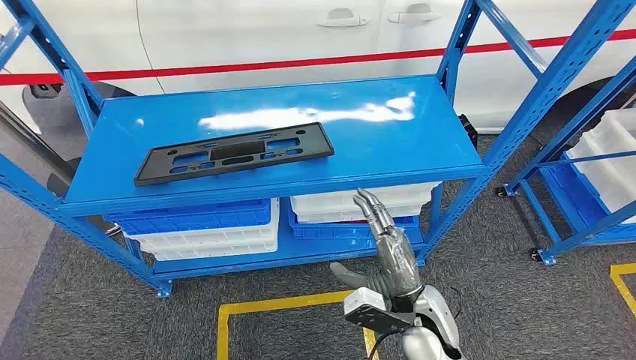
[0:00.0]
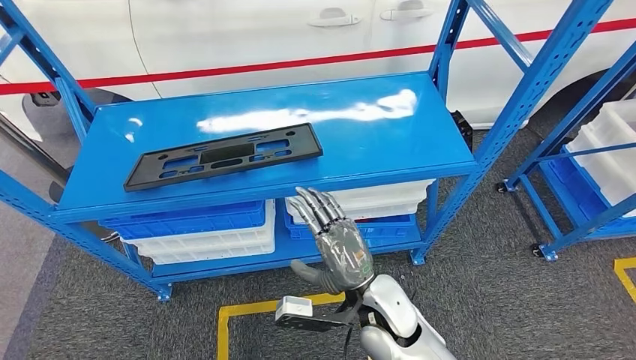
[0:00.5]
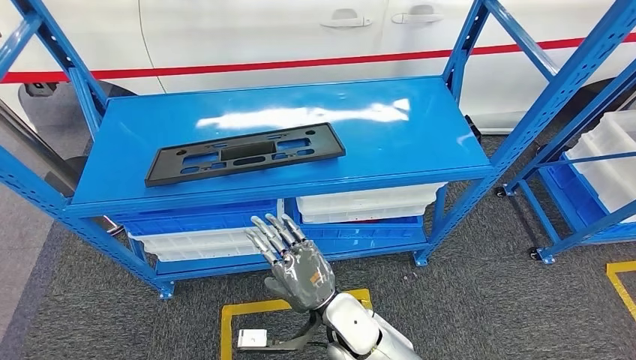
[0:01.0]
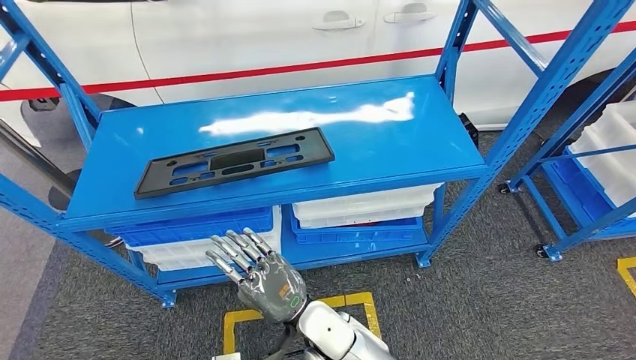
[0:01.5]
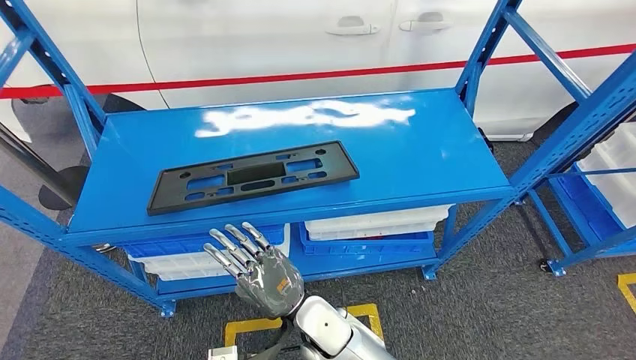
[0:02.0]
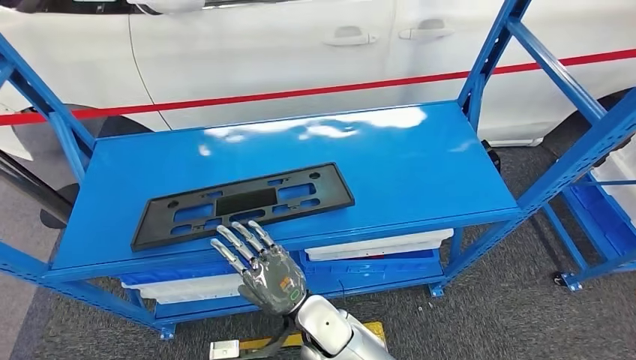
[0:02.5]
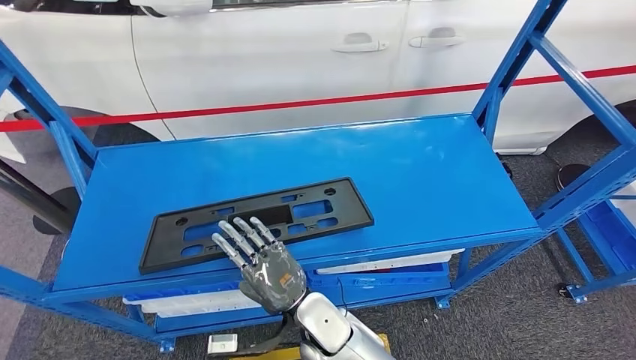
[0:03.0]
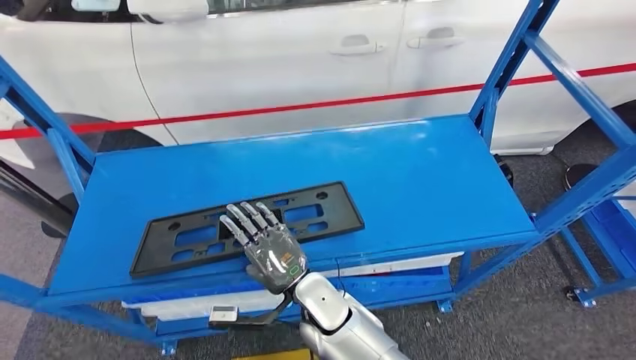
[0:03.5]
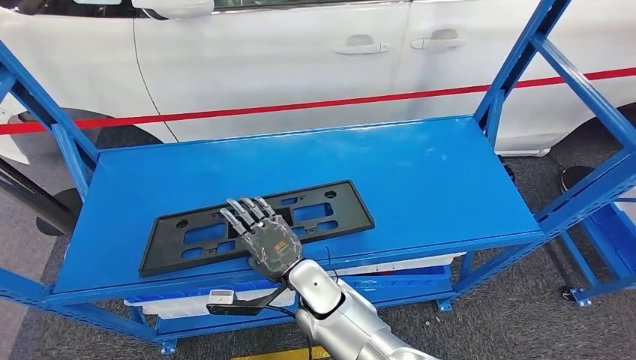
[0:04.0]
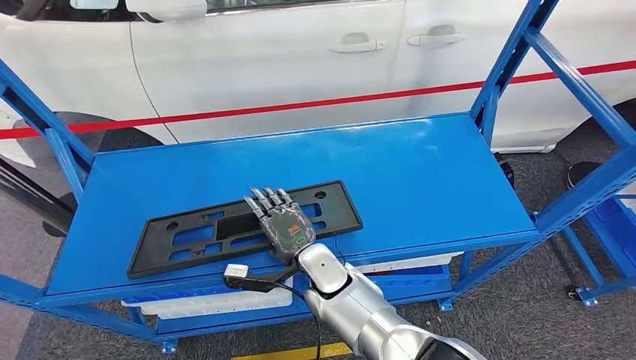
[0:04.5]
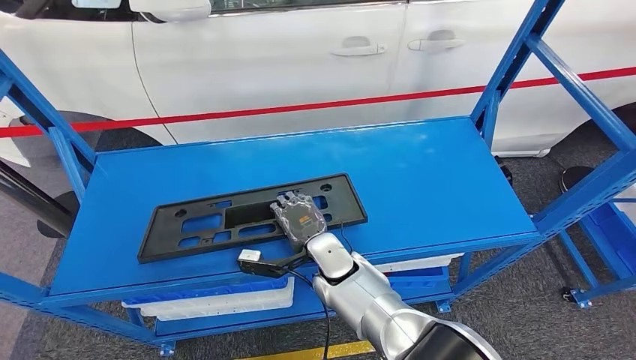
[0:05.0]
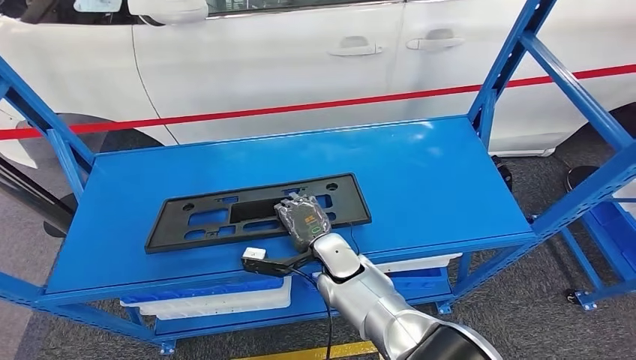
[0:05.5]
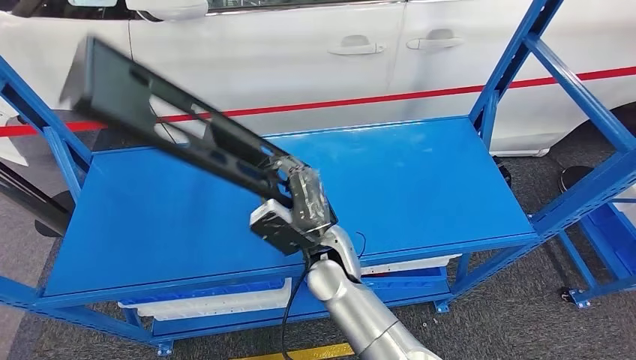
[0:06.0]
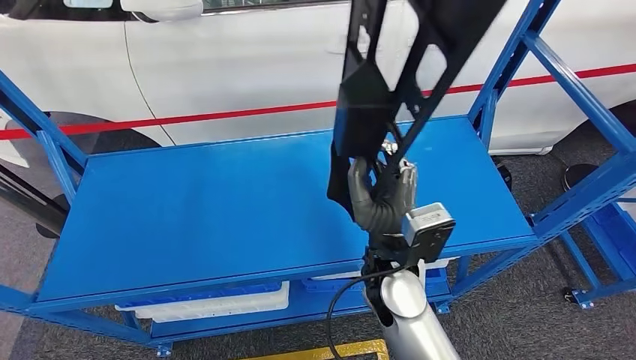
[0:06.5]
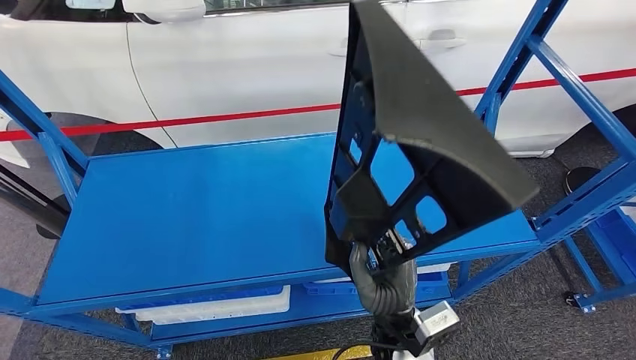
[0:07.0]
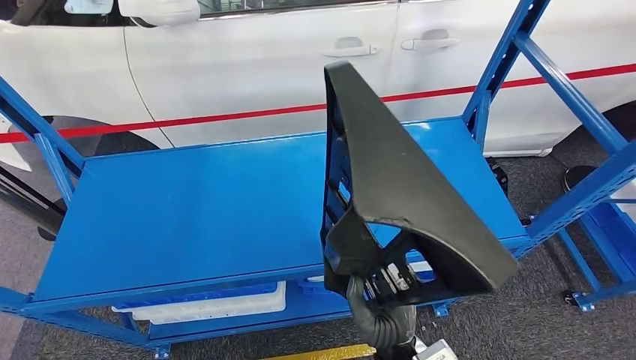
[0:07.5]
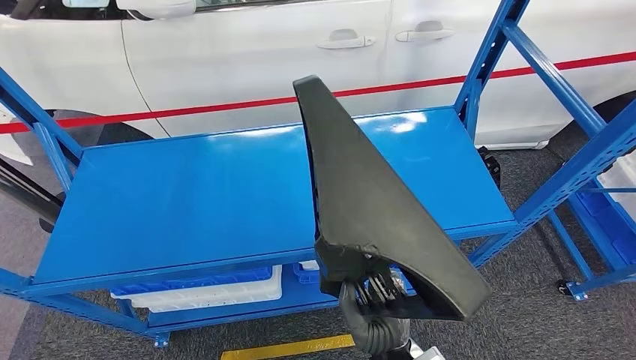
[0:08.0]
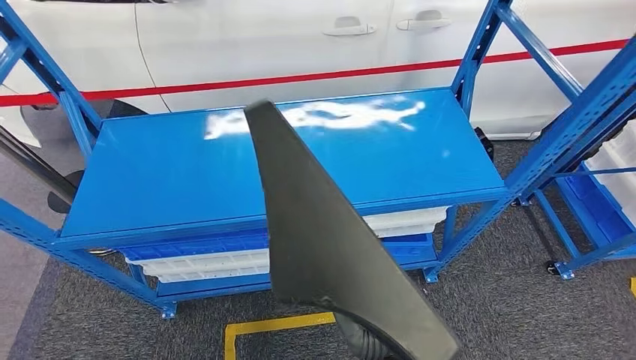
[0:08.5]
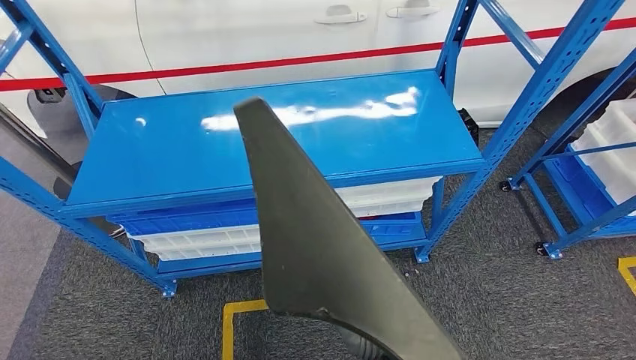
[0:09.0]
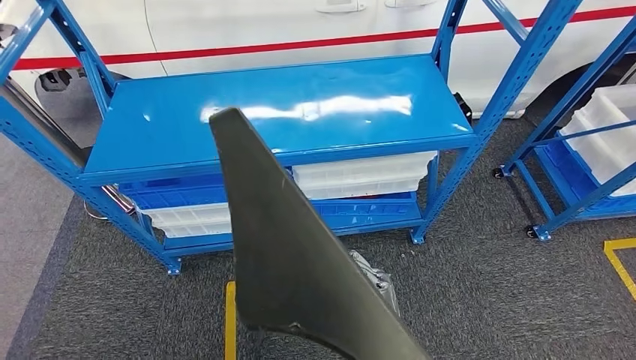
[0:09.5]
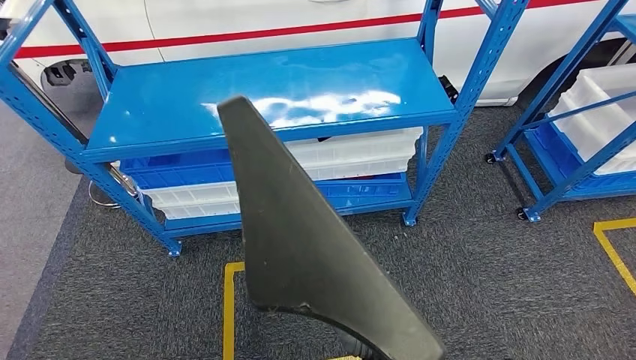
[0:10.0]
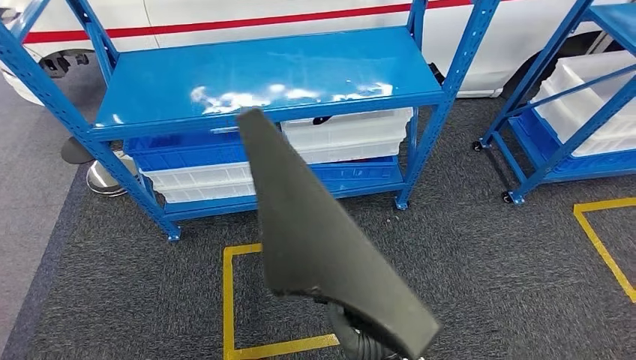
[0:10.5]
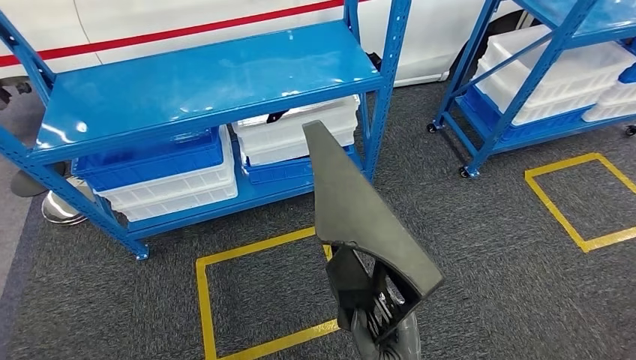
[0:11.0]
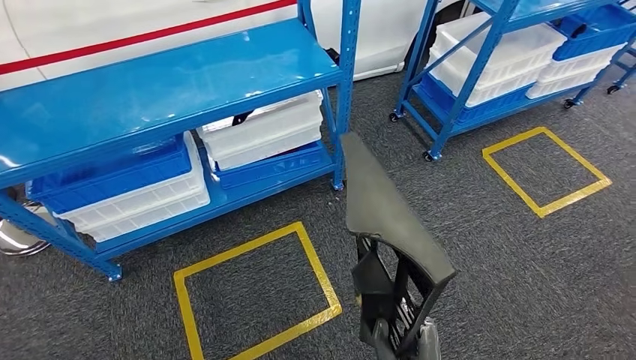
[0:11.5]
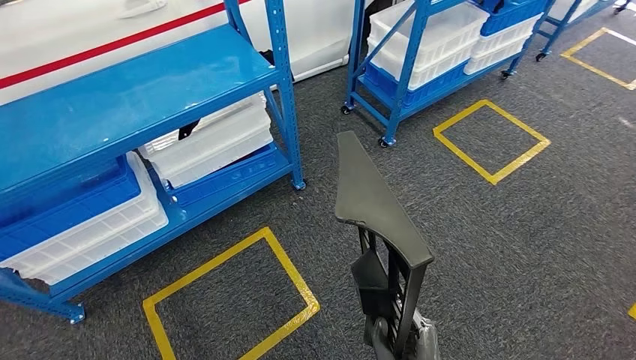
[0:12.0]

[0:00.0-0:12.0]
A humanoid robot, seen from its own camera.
Step, 0:00.0 to 0:08.0: Pick up the large material from the shelf.

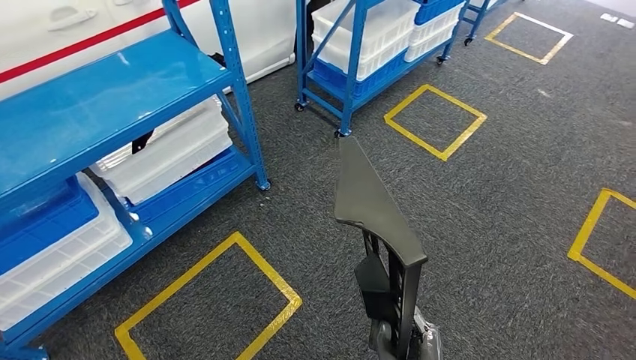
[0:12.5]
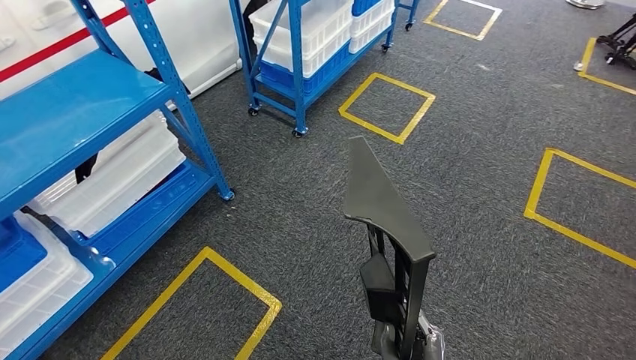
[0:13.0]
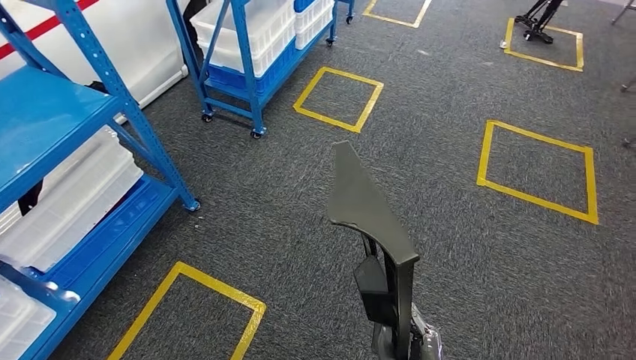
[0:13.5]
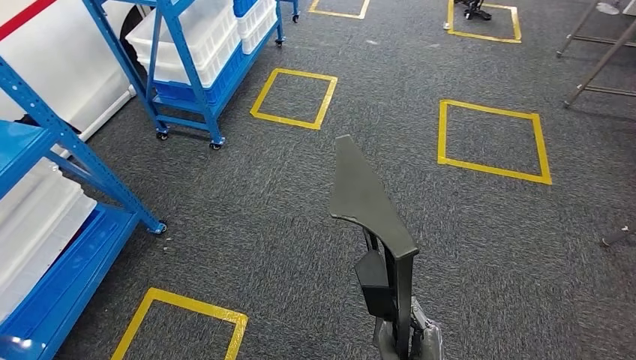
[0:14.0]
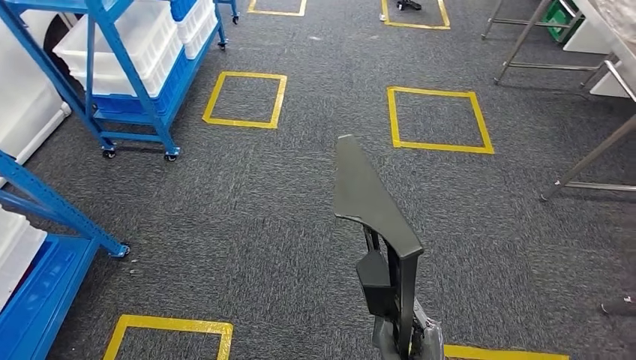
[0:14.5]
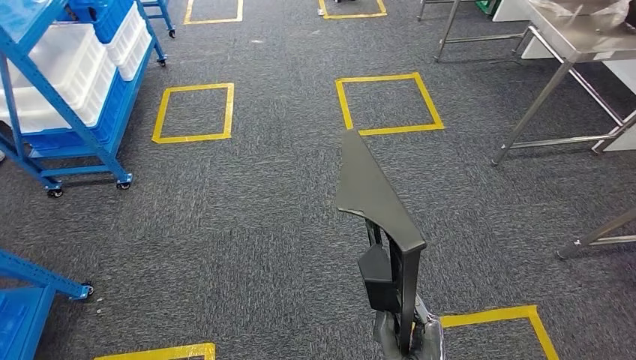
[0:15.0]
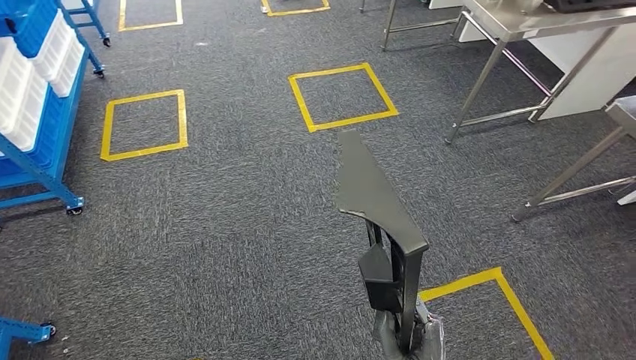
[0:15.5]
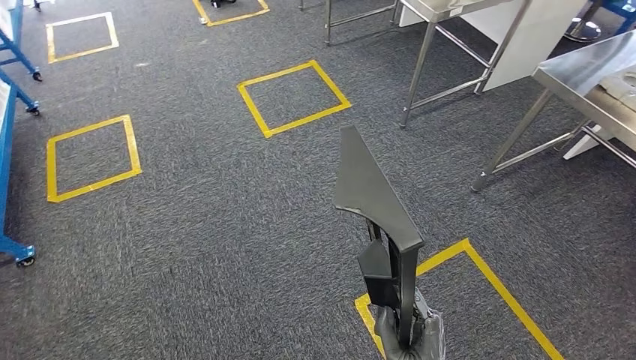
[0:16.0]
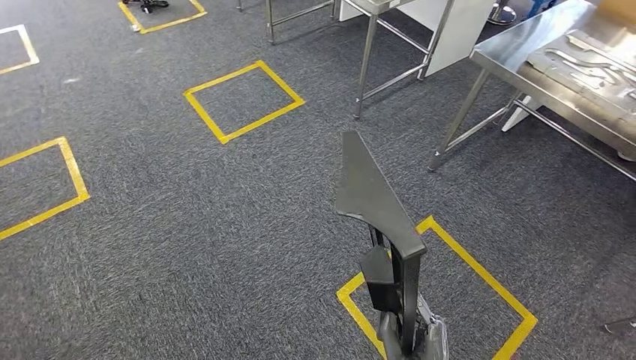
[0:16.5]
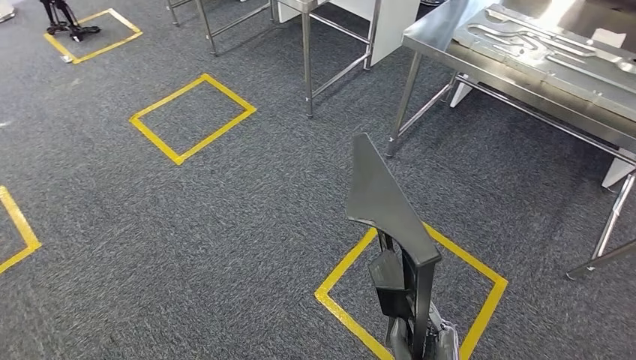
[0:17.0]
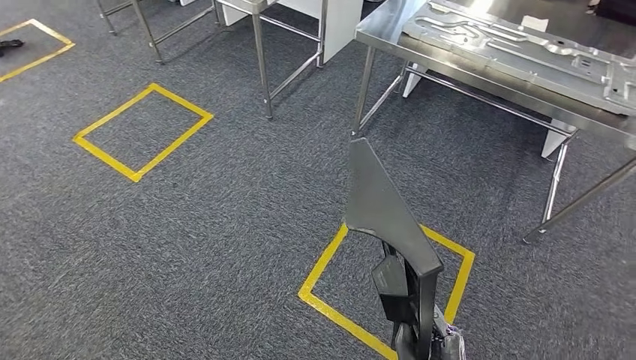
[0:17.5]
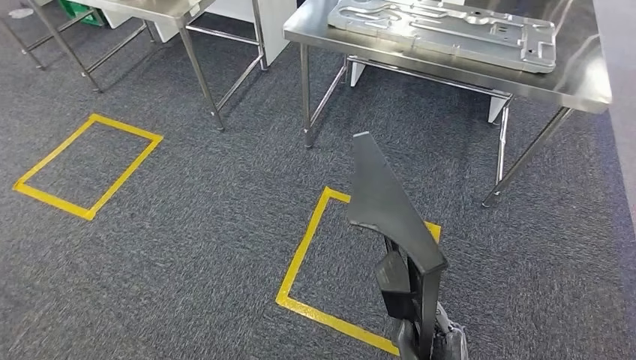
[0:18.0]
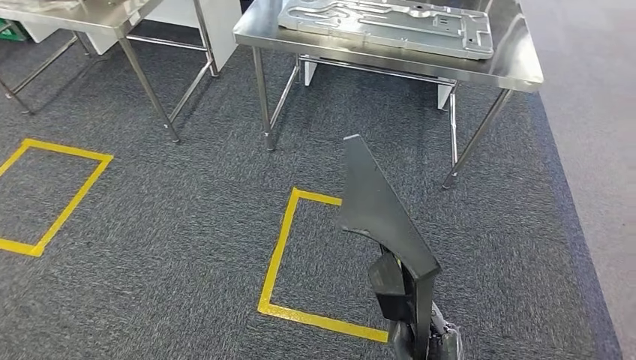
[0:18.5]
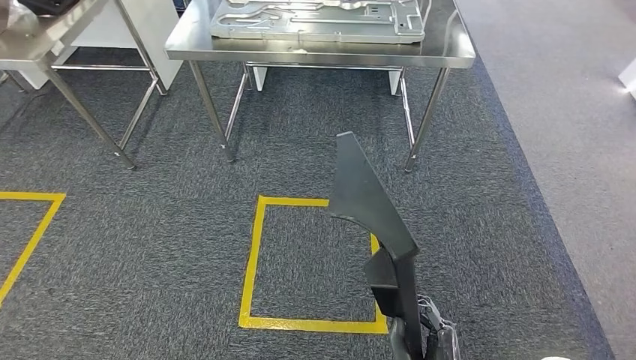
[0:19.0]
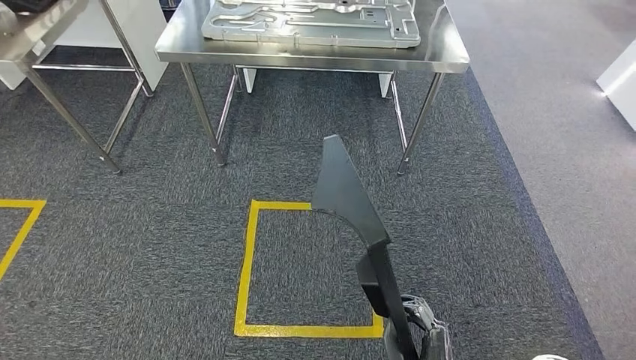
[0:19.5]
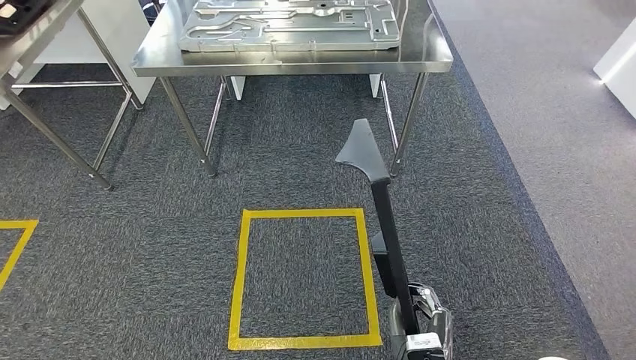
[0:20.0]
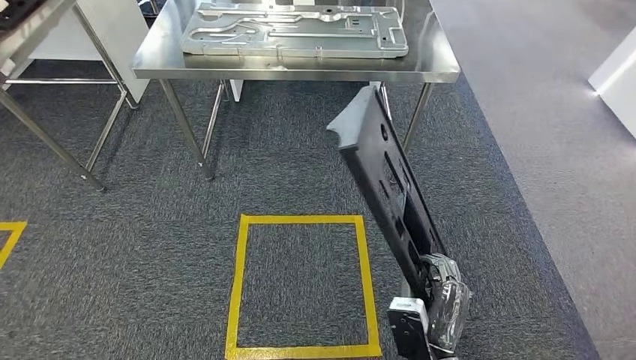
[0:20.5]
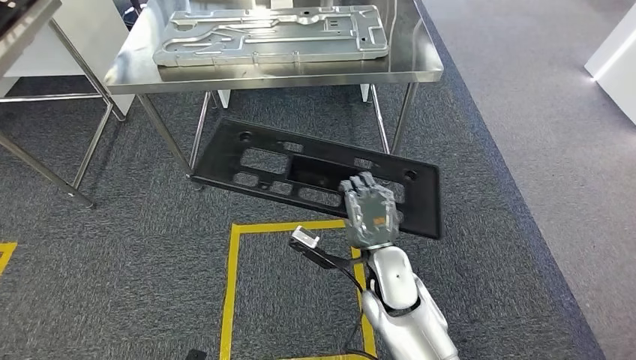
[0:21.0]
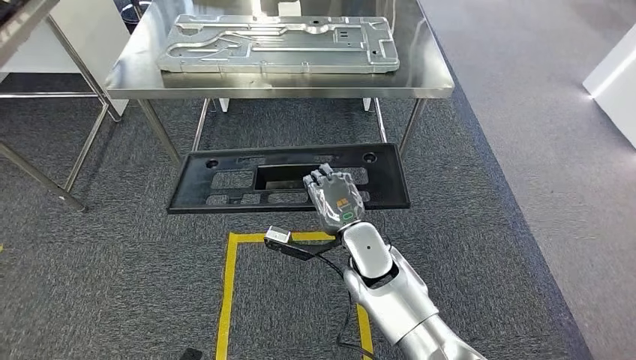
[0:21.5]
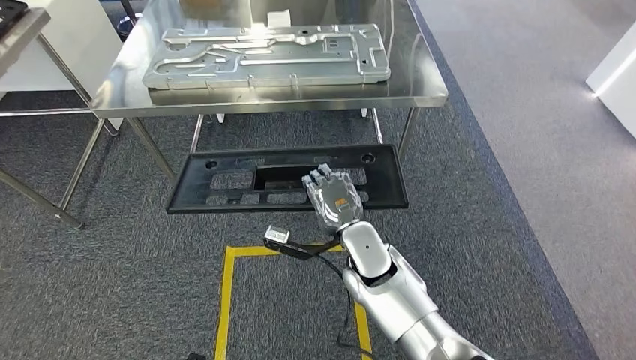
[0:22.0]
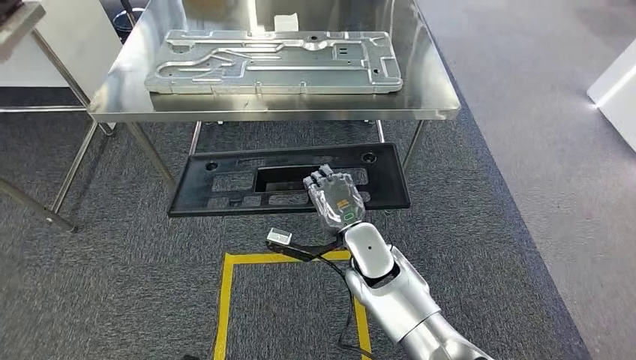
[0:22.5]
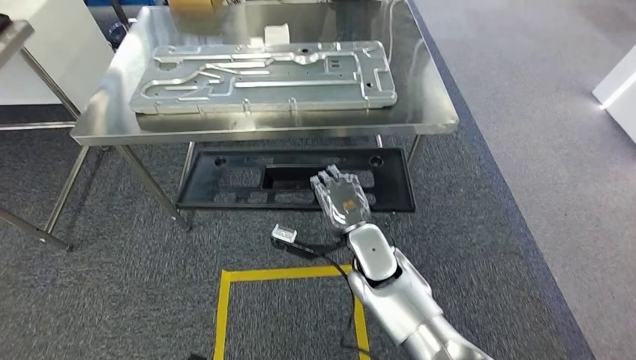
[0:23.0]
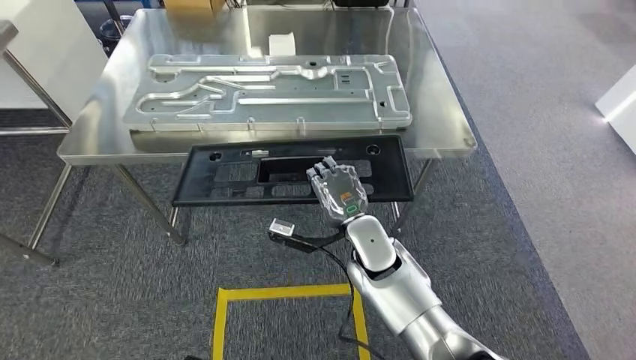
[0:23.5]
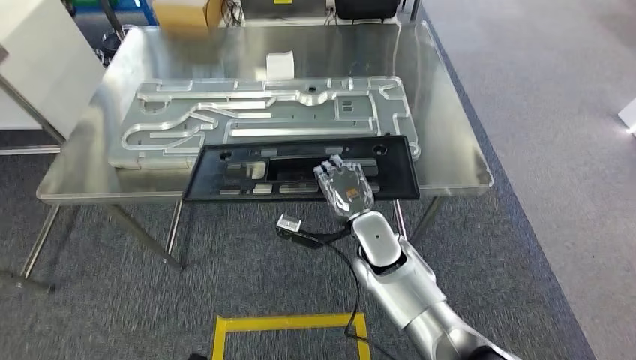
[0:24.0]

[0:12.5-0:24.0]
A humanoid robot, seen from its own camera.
Step, 0:12.5 to 0:23.0: Move the large material to the workbench.
